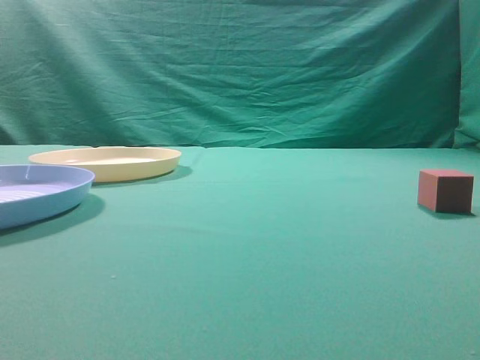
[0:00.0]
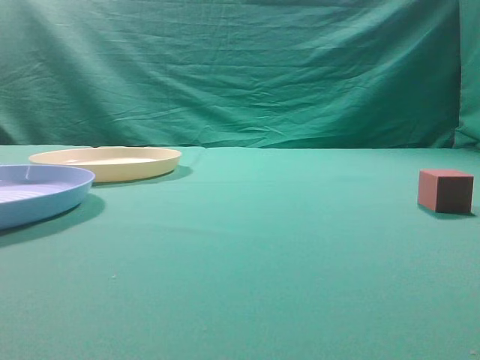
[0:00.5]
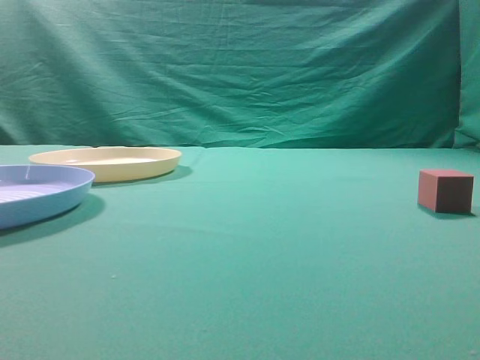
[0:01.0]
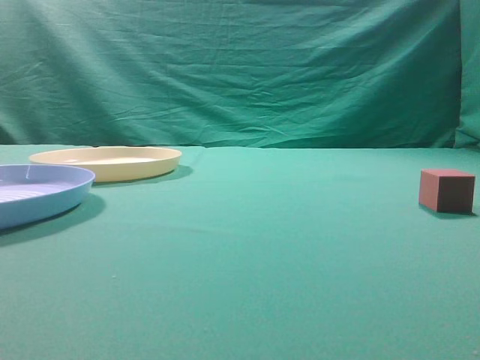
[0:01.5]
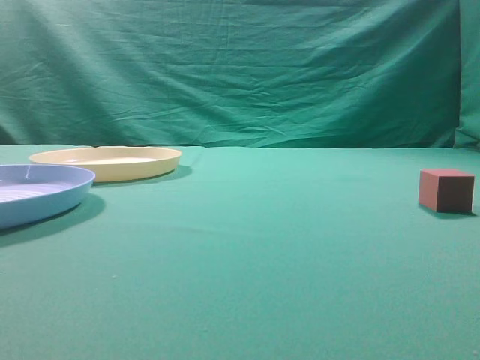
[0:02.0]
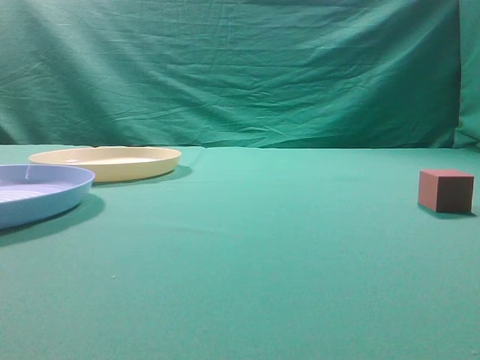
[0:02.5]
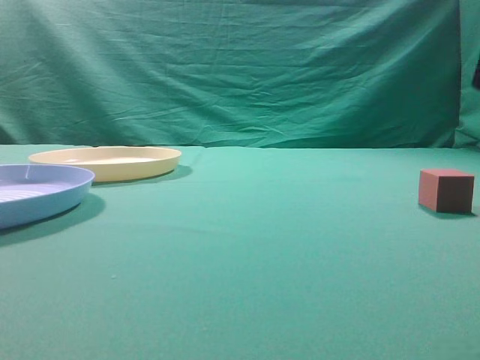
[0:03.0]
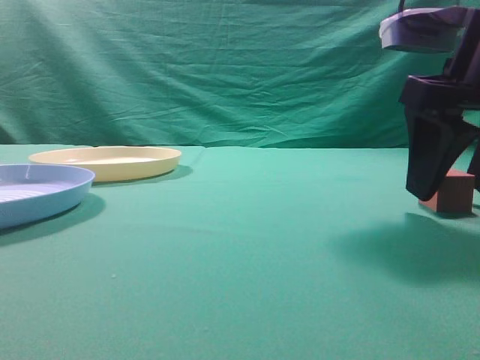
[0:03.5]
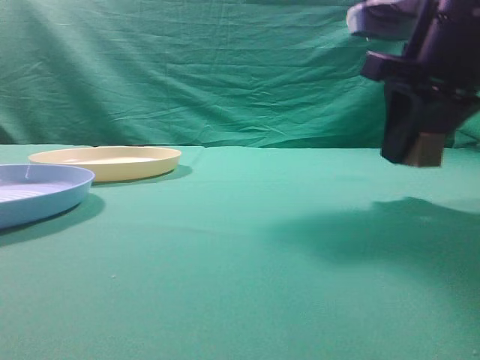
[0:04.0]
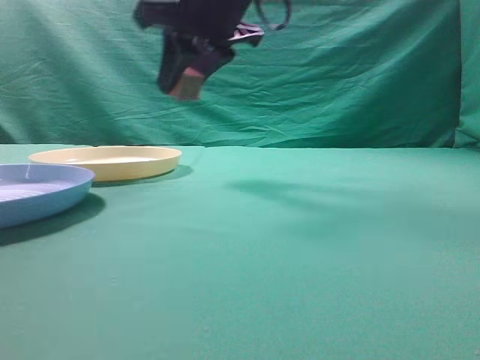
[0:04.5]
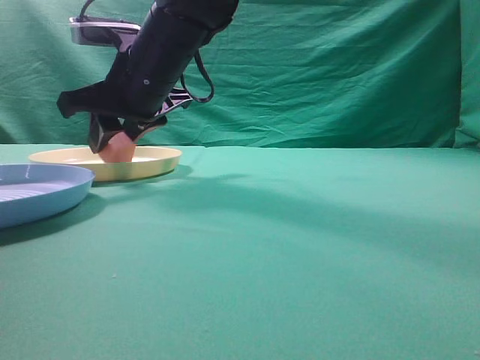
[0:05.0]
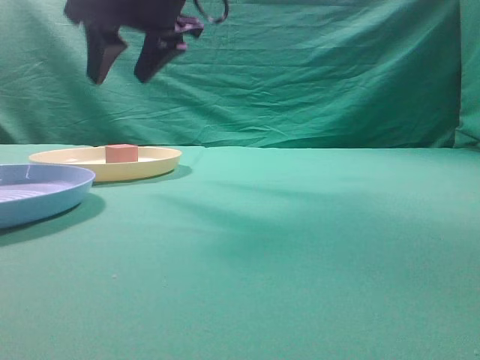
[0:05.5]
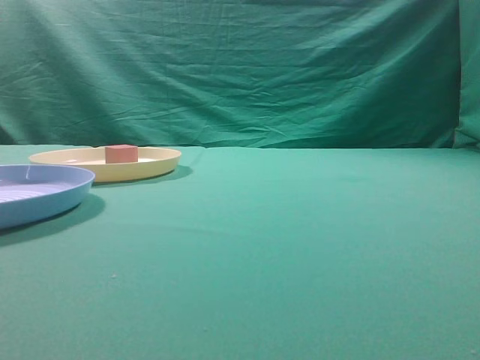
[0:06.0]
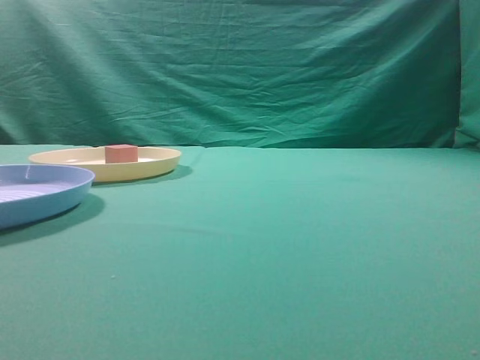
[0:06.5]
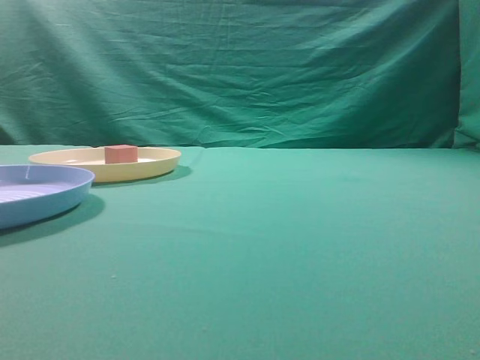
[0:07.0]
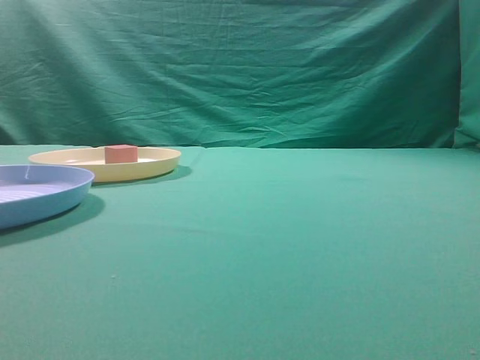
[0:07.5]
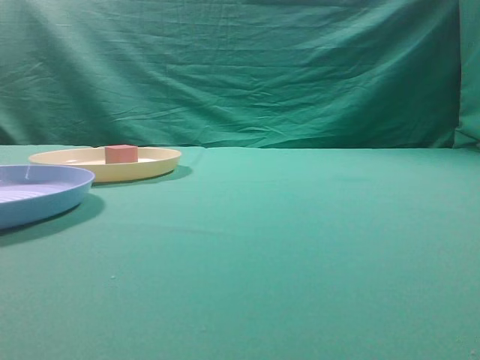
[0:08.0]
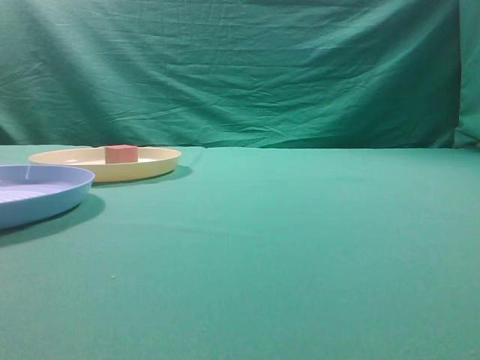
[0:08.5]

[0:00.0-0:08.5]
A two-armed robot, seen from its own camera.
Task of the whole recording: pick up the cube block from the table and put it on the plate.
Step, 0:00.0 to 0:04.0: Grasp the small cube on the table.
Step, 0:04.5 to 0:05.0: Place it into the yellow plate.
0:02.0 to 0:04.0: The right gripper is displaced forward and to the left by some 25 cm, and opens.
0:04.0 to 0:06.5: The right gripper travels upward and backward by approximately 25 cm, goes to the left and returns, approximately 25 cm each way, and closes up.
